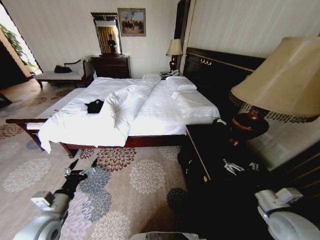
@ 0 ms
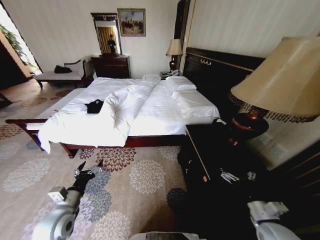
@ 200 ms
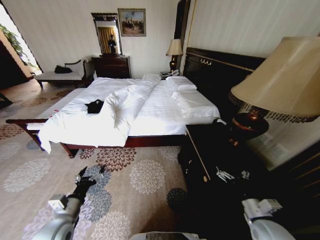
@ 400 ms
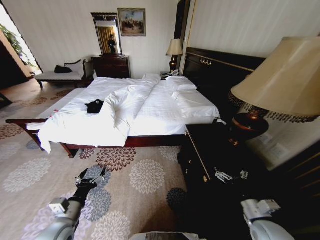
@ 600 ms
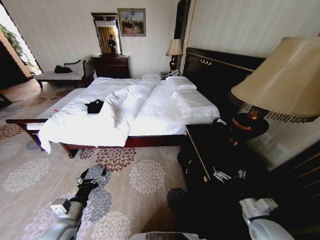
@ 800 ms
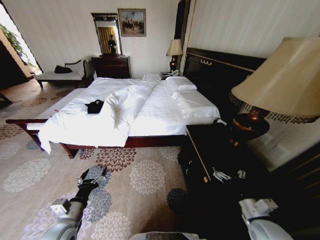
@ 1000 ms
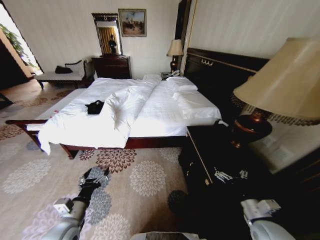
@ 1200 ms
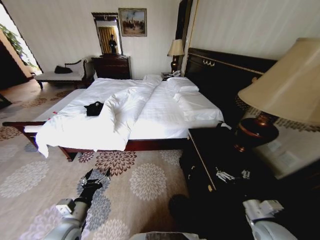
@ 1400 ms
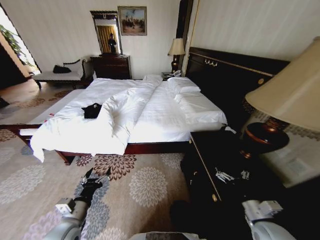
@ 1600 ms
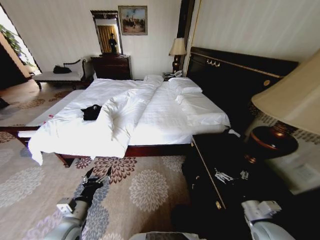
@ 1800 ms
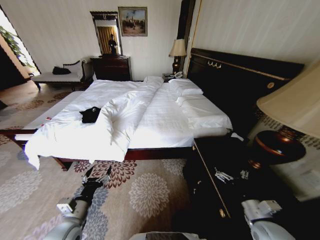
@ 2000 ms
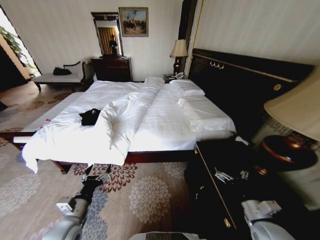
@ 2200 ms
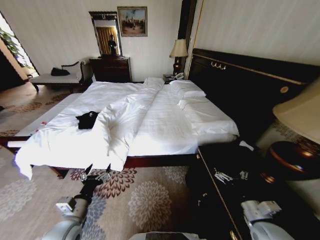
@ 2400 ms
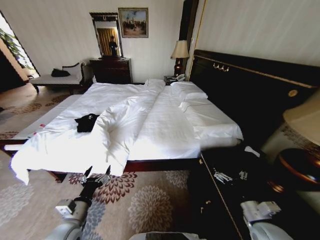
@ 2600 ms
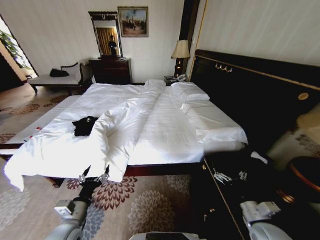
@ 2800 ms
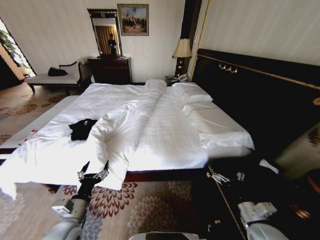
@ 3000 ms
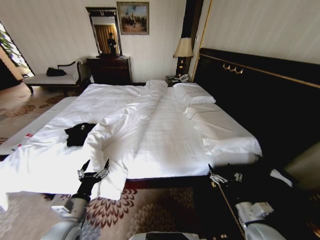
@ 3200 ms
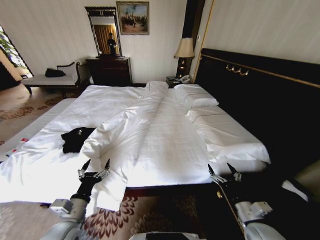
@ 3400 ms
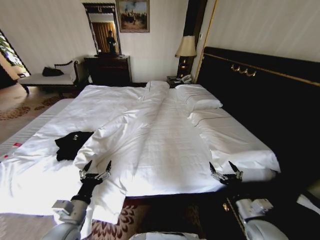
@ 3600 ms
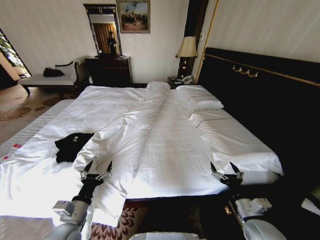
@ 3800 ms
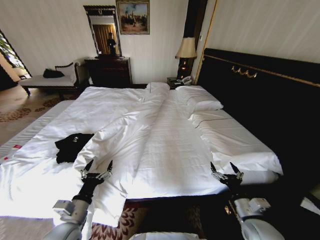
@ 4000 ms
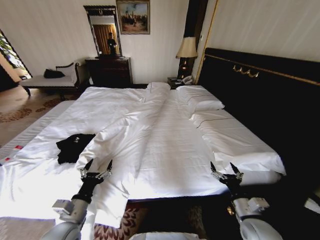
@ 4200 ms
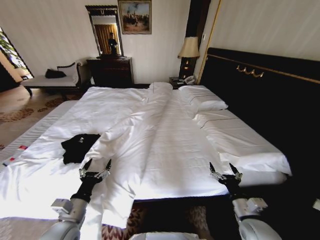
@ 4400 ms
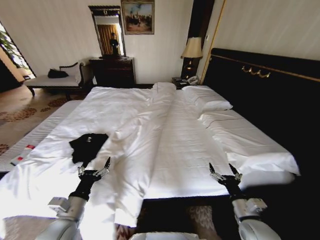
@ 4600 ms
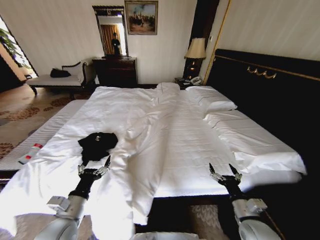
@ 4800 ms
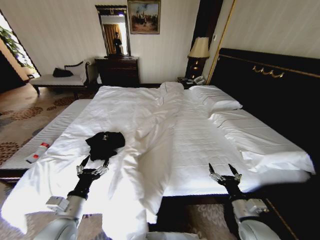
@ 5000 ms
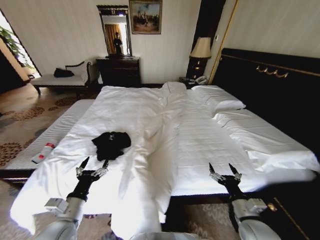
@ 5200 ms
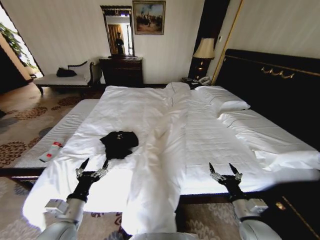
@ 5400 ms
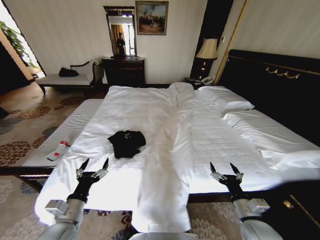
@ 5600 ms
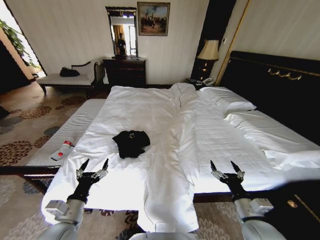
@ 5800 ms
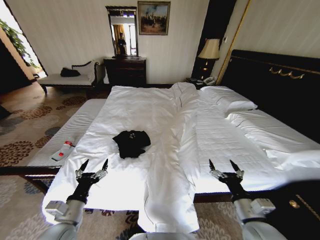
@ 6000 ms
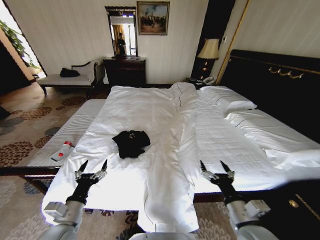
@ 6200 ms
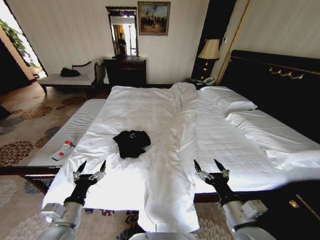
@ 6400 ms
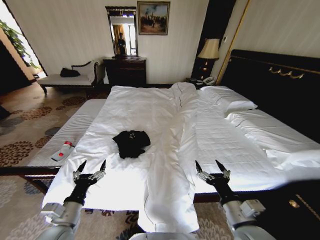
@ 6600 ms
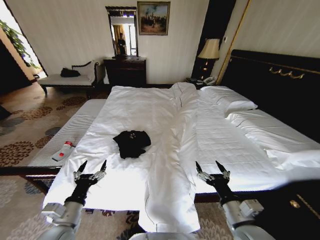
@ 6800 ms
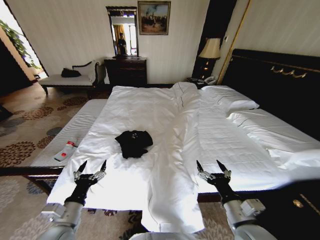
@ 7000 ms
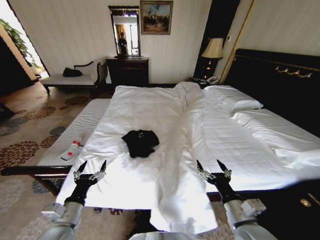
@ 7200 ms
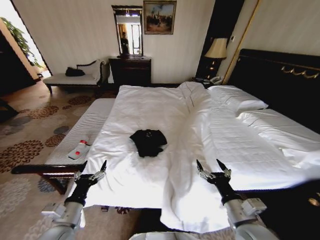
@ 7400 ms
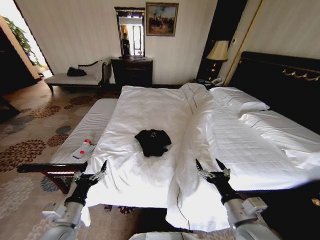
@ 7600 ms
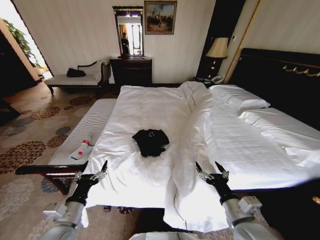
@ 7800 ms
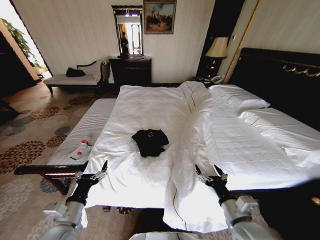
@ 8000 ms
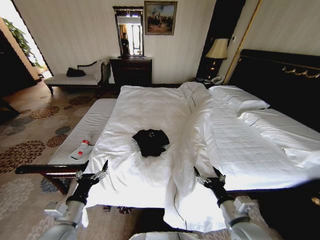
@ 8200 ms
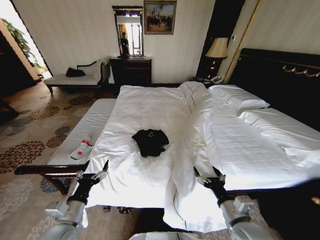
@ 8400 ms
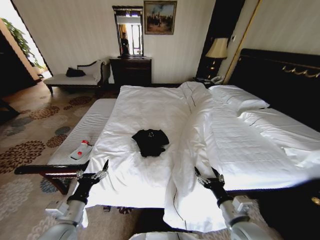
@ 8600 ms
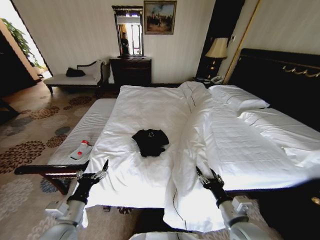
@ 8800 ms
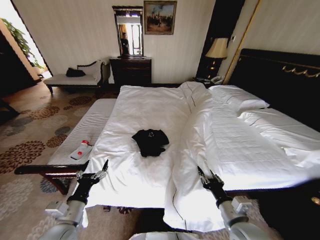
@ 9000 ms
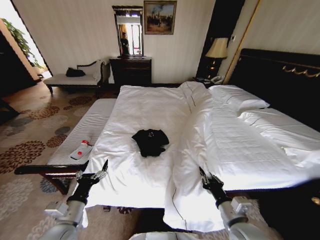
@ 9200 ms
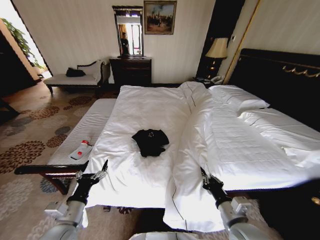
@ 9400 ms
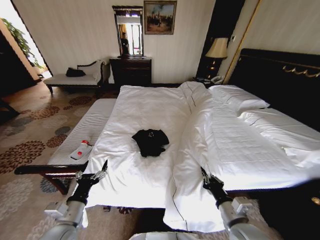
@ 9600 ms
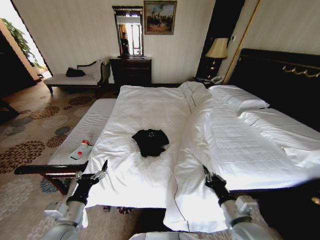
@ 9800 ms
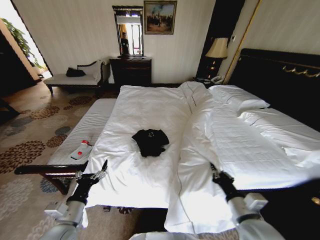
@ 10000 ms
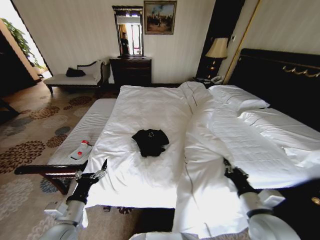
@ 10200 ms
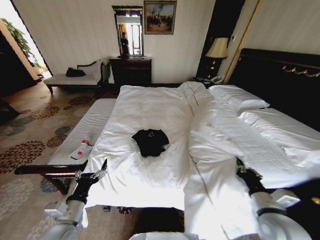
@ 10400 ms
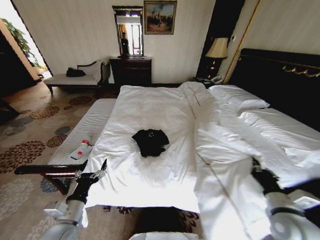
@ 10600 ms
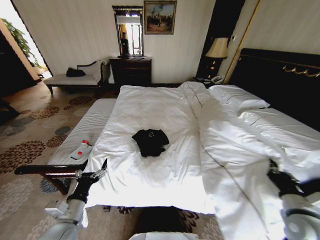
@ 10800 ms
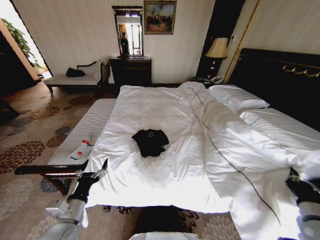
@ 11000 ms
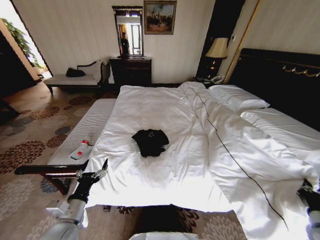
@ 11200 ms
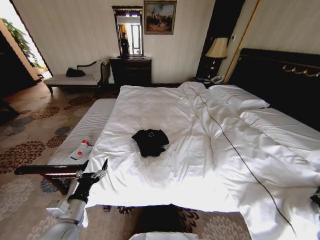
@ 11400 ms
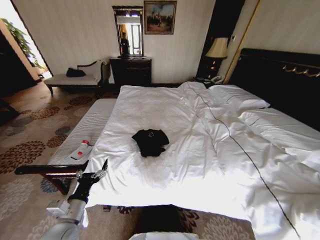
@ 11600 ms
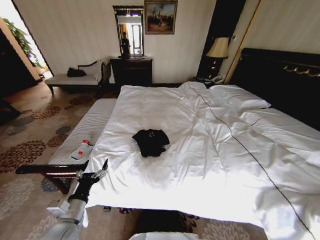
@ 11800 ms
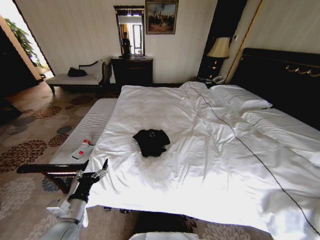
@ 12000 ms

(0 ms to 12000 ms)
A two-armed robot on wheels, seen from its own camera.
Task of the whole recording: Fold the clothes on the bed.
6000 ms - 7600 ms: The right gripper ends up some 5 cm from where it was.
7600 ms - 9000 ms: The right gripper closes its fingers.
9000 ms - 10400 ms: The right gripper heads to the right, covering some 10 cm, and closes.
10400 ms - 12000 ms: The right gripper heads to the right, covering about 30 cm.

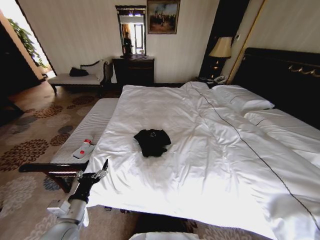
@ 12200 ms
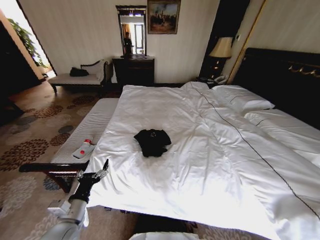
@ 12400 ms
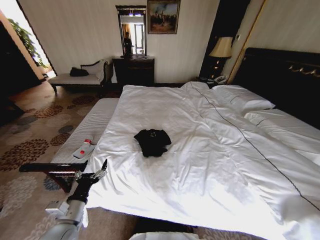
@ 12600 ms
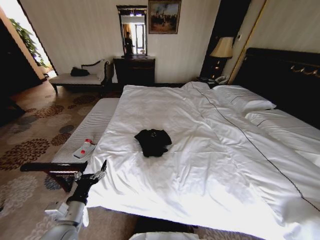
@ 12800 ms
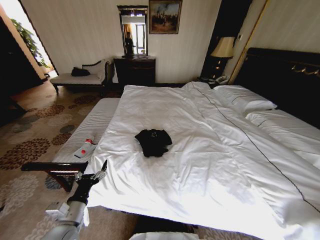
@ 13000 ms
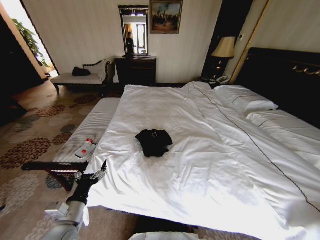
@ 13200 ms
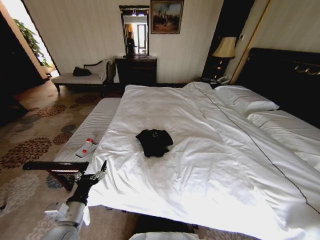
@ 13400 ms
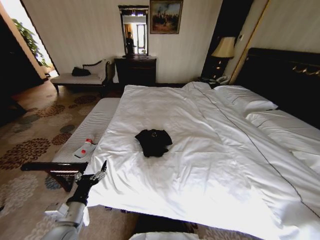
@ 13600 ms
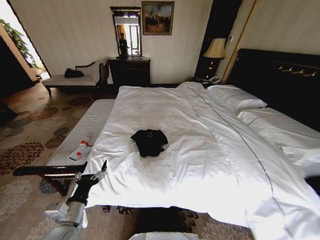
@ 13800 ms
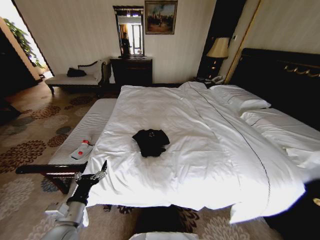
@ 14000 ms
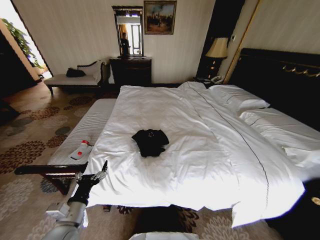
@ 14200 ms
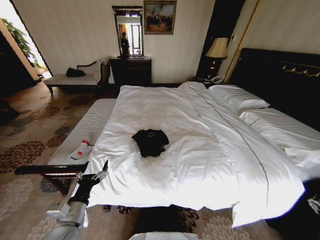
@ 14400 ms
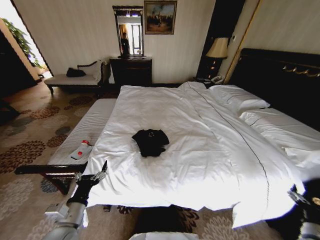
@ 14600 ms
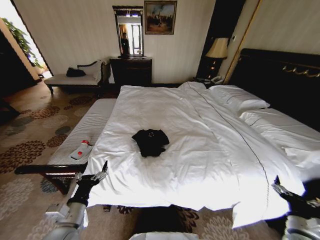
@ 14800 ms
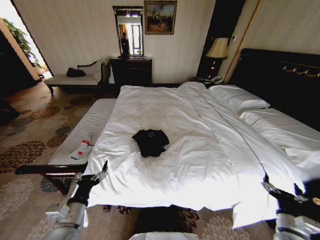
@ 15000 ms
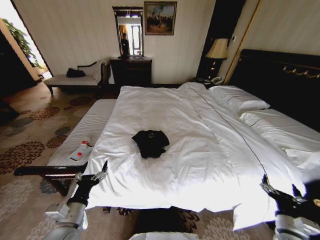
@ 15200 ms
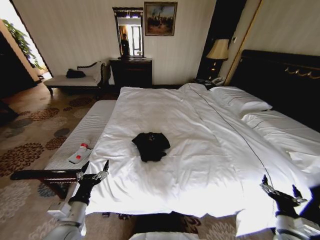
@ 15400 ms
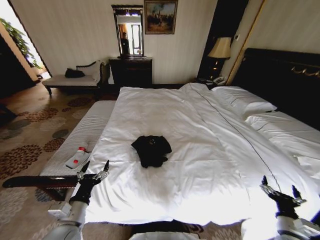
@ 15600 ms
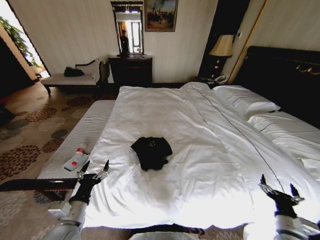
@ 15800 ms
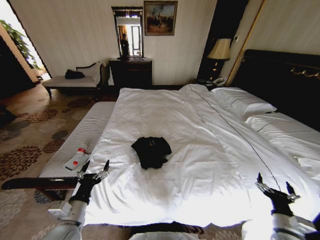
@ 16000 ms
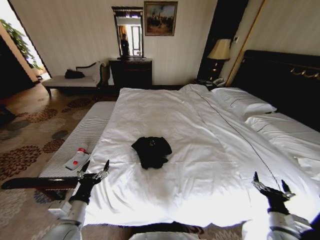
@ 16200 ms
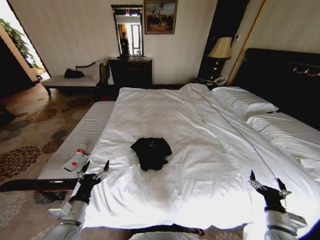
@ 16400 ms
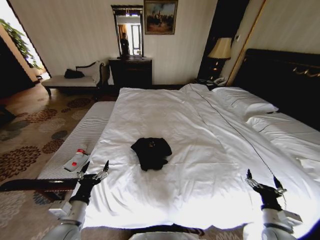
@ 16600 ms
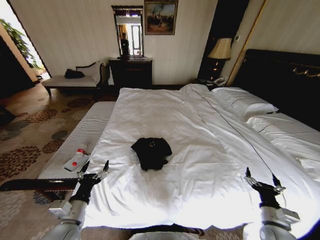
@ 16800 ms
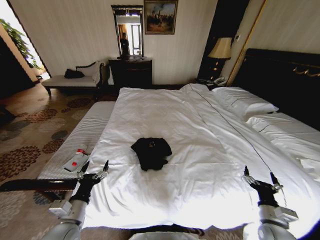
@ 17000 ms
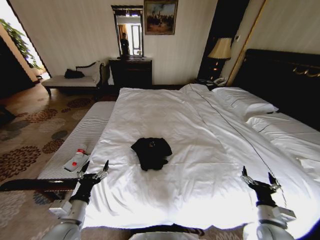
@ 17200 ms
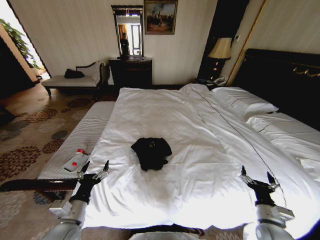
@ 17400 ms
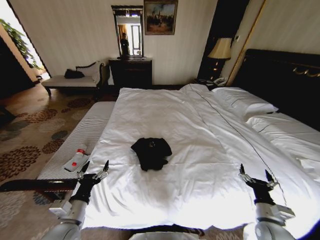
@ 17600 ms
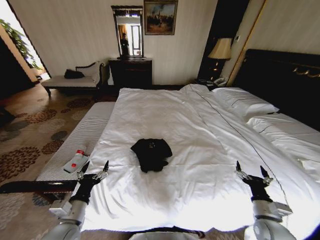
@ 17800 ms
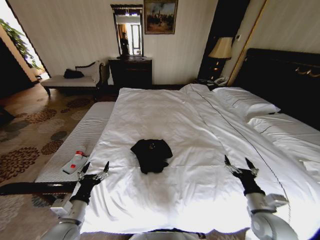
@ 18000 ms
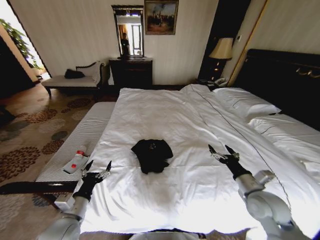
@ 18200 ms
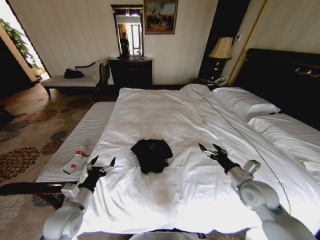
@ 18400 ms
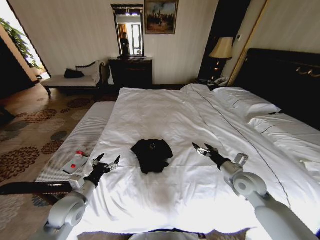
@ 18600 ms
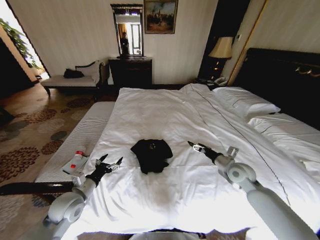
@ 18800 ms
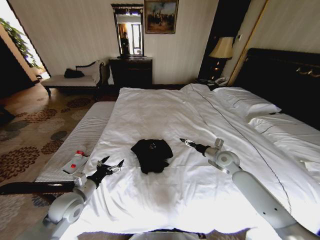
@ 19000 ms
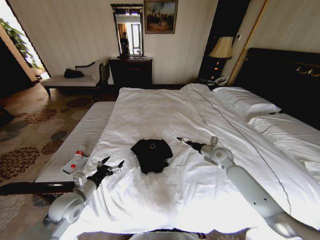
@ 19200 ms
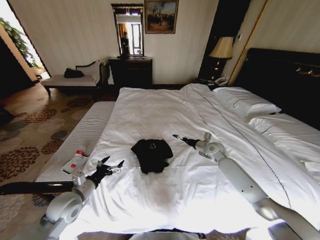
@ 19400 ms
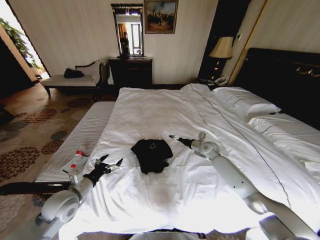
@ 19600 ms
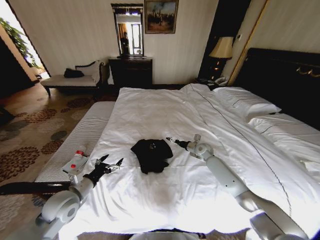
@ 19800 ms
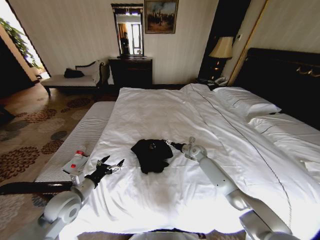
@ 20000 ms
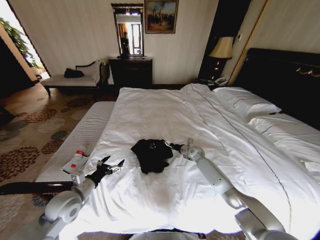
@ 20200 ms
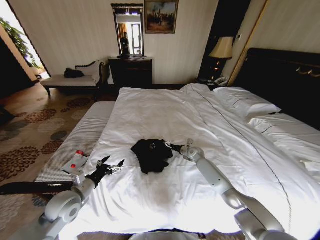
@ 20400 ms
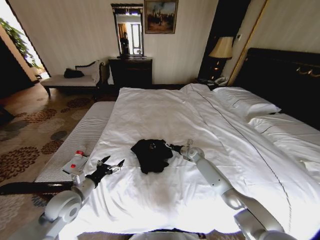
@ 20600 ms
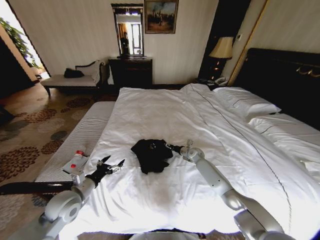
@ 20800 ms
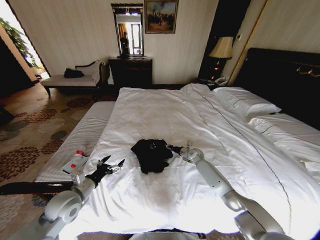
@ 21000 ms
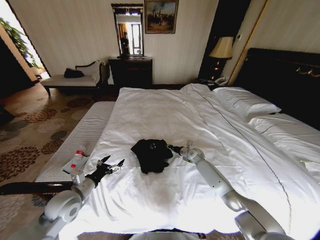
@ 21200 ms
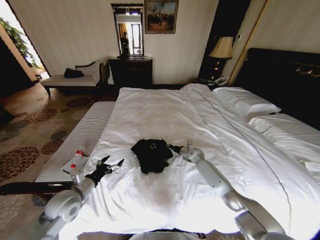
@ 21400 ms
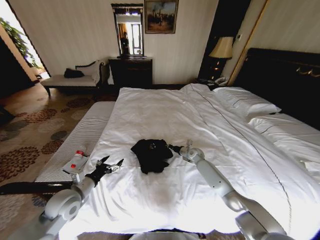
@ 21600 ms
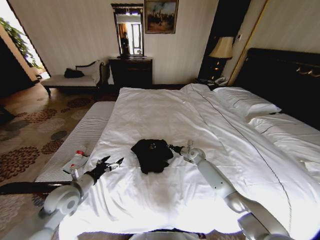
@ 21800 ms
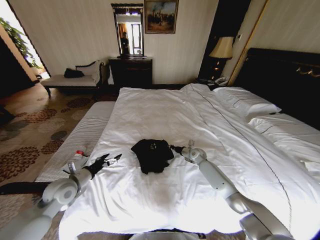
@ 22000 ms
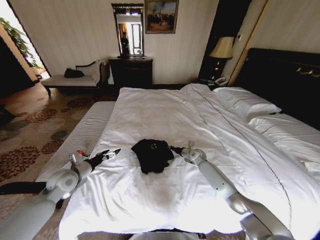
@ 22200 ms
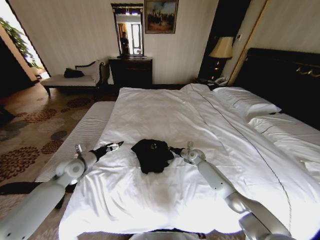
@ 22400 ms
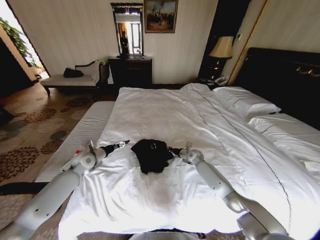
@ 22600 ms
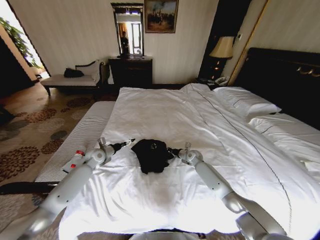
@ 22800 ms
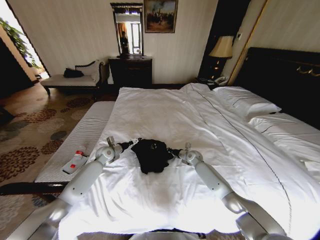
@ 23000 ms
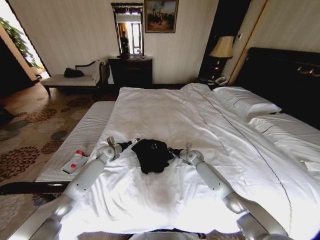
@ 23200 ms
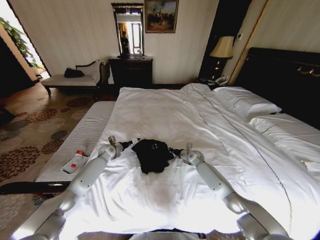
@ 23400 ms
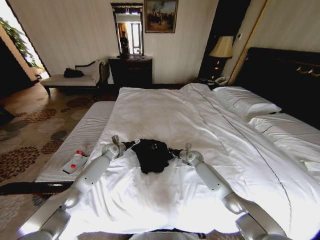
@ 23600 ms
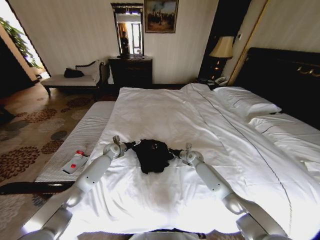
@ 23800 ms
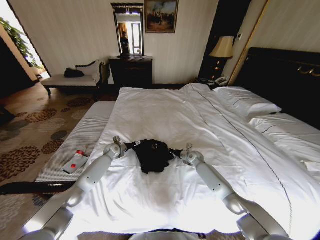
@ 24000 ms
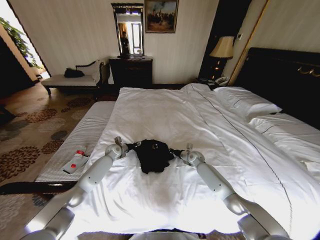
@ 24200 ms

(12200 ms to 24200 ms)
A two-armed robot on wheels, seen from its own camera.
Task of the whole recording: Fold the clothes on the bed.
12200 ms - 13800 ms: The right gripper goes approximately 5 cm downward.
13800 ms - 15200 ms: The right gripper moves to the left, some 25 cm, and opens up.
16600 ms - 18200 ms: The right gripper shifts roughly 15 cm upward, forward and to the left.
18200 ms - 19800 ms: The left gripper heads forward, covering roughly 5 cm. Meanwhile the right gripper moves forward, about 30 cm.
19800 ms - 21200 ms: The right gripper shifts some 5 cm downward, and closes.
21200 ms - 22600 ms: The left gripper goes roughly 20 cm forward.
22600 ms - 24200 ms: The left gripper moves forward, to the right and downward, about 15 cm.
